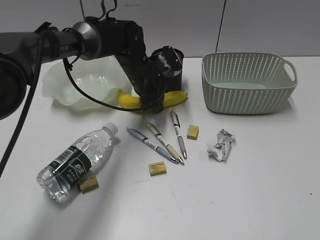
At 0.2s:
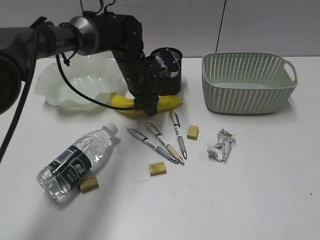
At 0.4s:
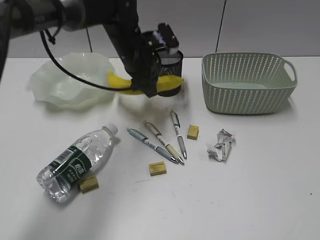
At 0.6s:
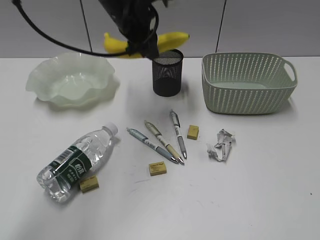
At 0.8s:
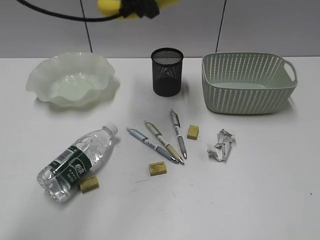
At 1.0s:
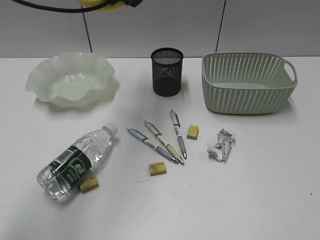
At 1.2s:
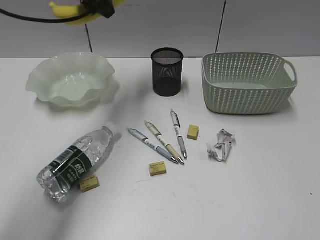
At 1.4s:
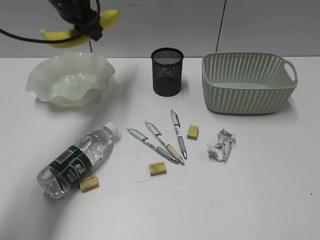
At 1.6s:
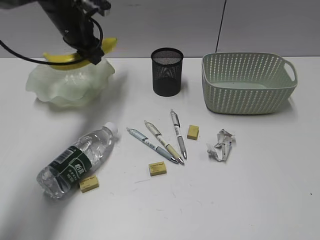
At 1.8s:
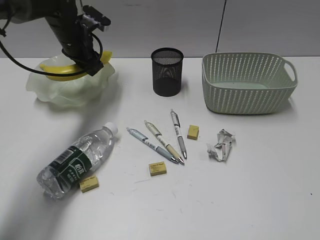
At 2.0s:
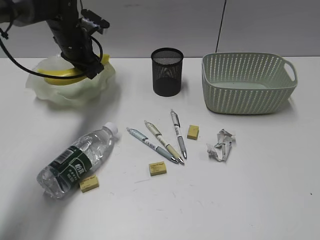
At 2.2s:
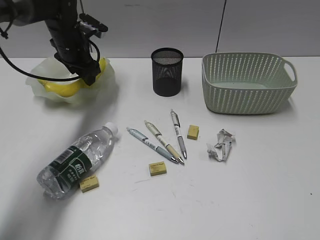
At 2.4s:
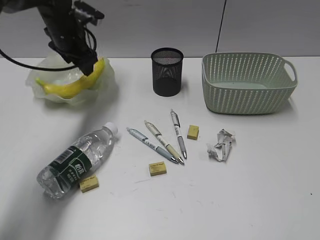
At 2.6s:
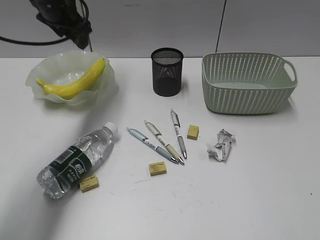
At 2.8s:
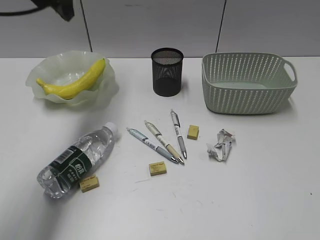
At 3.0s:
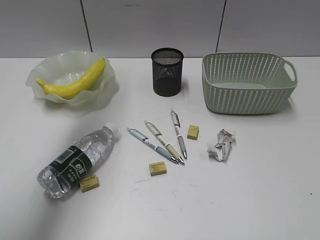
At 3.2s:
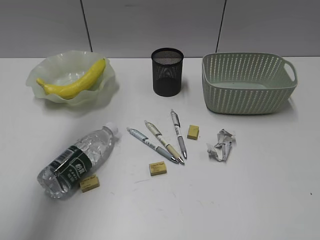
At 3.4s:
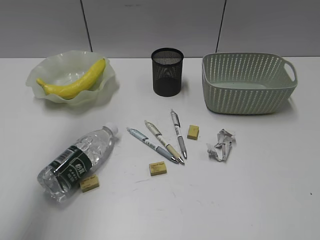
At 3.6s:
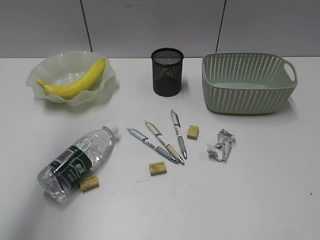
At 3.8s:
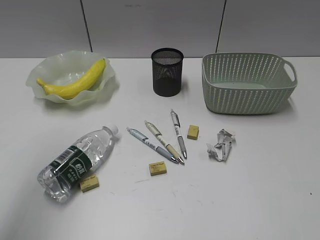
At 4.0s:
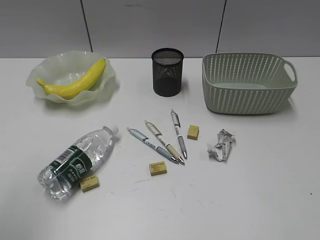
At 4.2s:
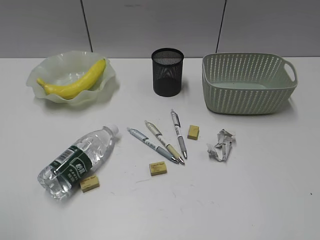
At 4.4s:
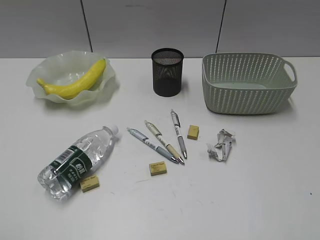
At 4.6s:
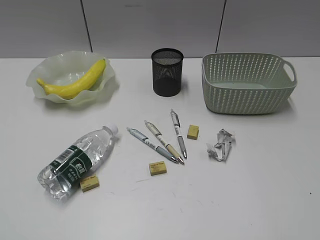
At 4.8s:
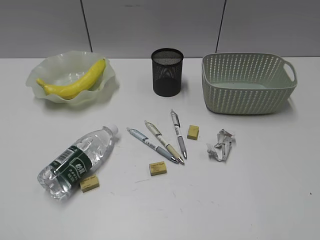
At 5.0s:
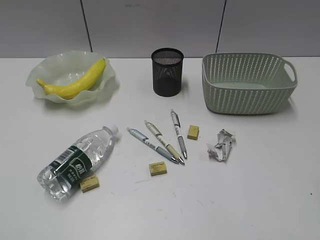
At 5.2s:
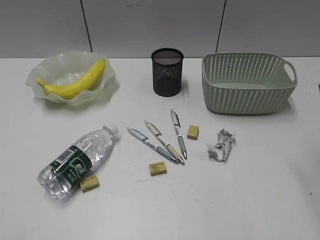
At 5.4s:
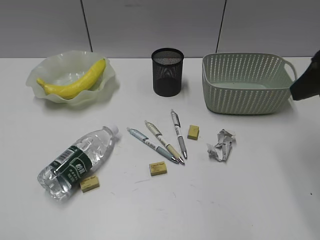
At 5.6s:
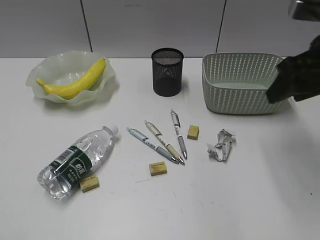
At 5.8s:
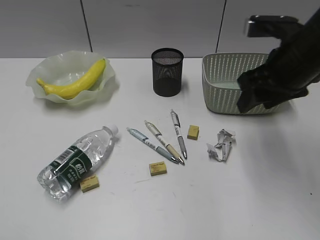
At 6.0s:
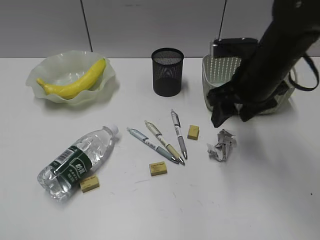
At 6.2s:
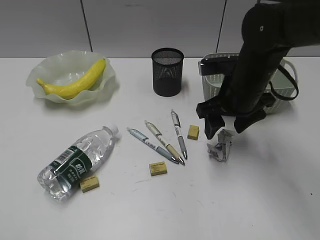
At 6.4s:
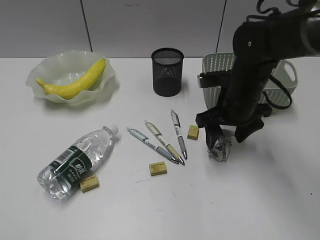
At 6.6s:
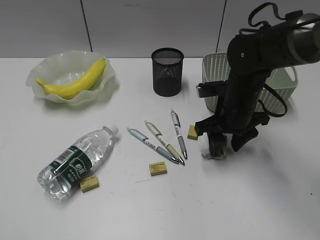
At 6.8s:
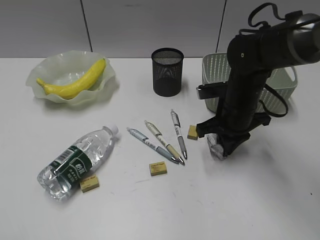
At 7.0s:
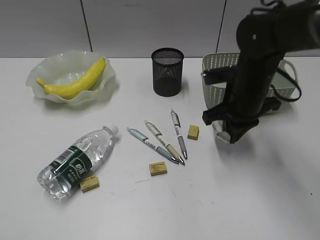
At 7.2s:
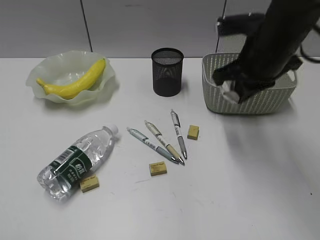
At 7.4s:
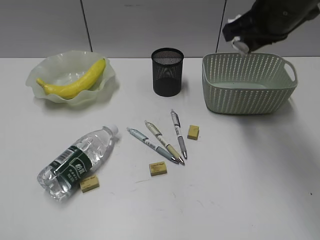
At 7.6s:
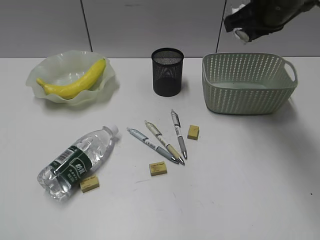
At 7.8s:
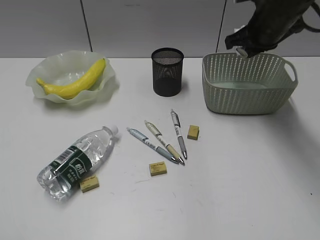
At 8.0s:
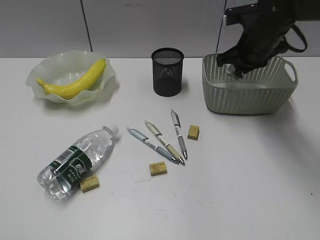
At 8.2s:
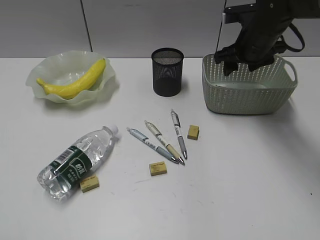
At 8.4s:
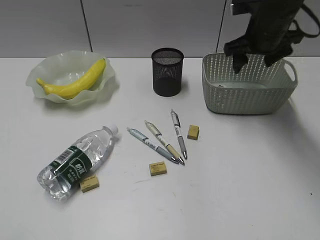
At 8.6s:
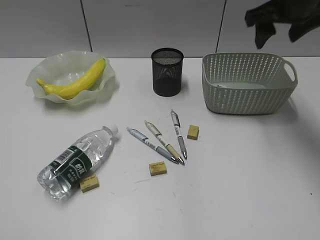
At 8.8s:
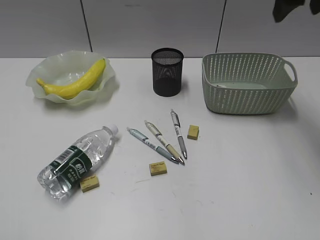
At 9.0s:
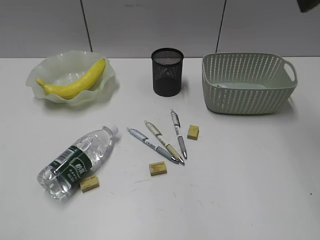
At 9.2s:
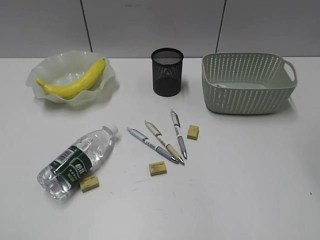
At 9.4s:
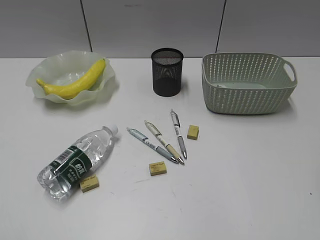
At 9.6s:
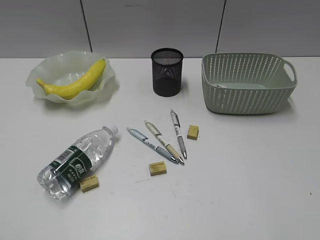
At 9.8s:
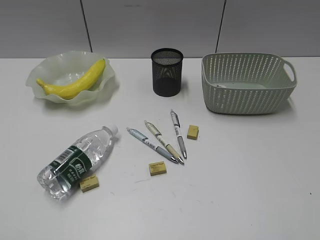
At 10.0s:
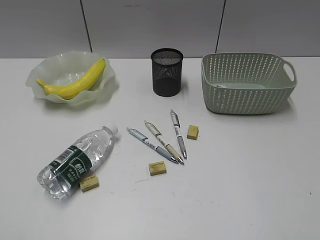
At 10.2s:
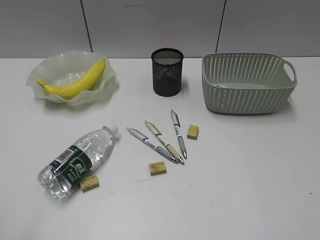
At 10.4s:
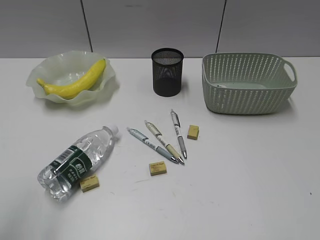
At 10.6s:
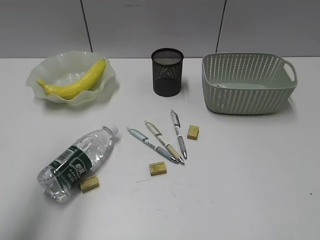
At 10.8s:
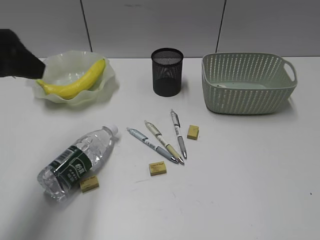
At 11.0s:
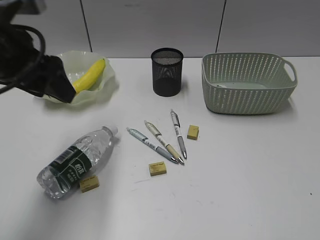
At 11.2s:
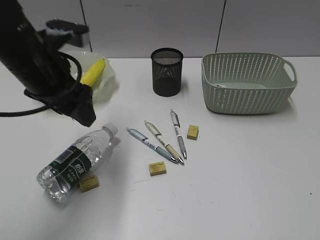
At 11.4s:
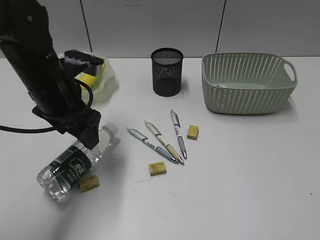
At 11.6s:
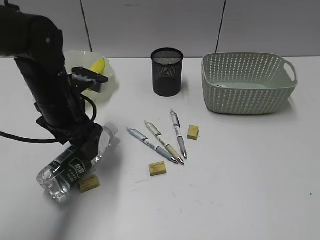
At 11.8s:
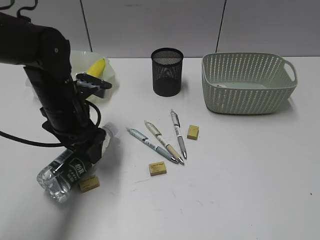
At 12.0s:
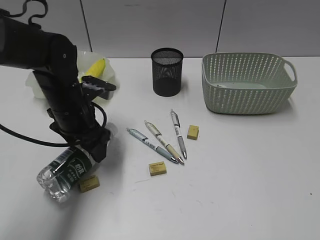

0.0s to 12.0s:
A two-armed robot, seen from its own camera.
Step, 0.2s to 2.4s: Place the banana in the plate with left gripper.
Step, 2.6s to 6.8s: Grasp the waste paper with right gripper.
Step, 7.0s to 8.2s: Place the waste paper in the basket with right gripper.
0.0s to 1.6s: The left gripper goes approximately 15 cm to the left and upward.
1.6s to 3.0s: The left gripper moves upward and backward, some 20 cm, and opens up.
3.0s to 4.4s: The left gripper shifts approximately 40 cm backward.
4.4s to 6.0s: The right gripper travels forward and to the left by approximately 35 cm.
6.0s to 7.6s: The right gripper travels upward and forward by some 10 cm, and closes.
7.6s to 9.0s: The right gripper heads upward and backward, covering about 15 cm, and opens its fingers.
10.4s to 12.0s: The left gripper goes approximately 35 cm forward, downward and to the right.

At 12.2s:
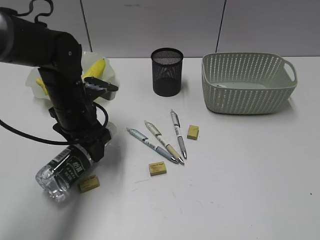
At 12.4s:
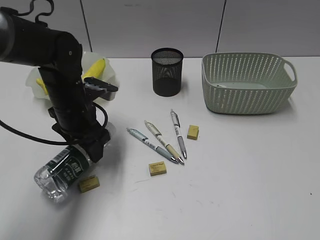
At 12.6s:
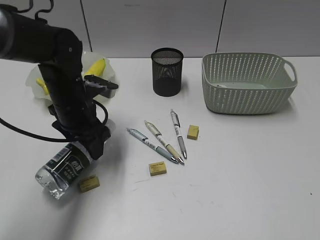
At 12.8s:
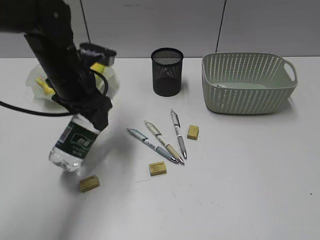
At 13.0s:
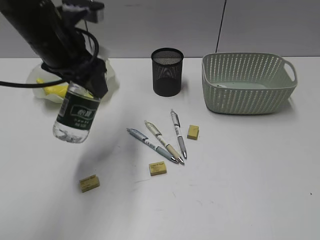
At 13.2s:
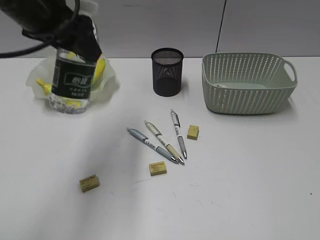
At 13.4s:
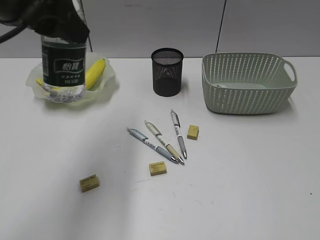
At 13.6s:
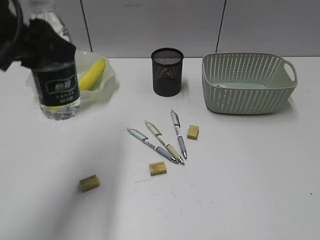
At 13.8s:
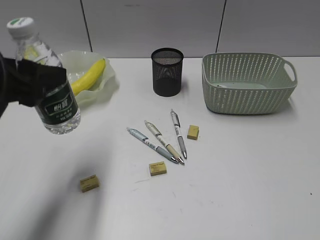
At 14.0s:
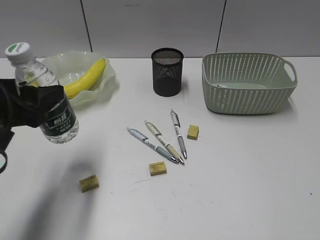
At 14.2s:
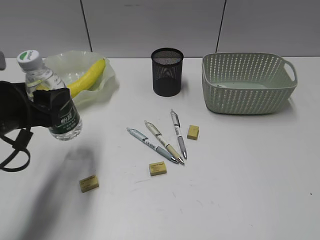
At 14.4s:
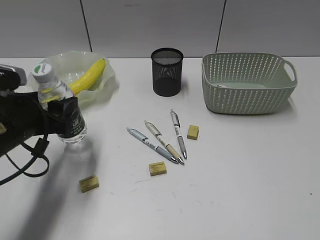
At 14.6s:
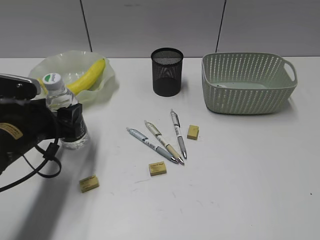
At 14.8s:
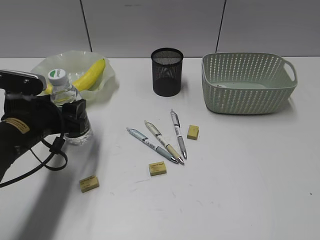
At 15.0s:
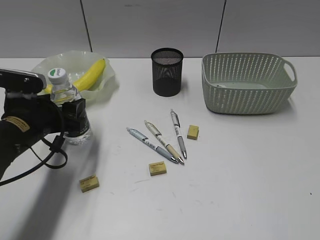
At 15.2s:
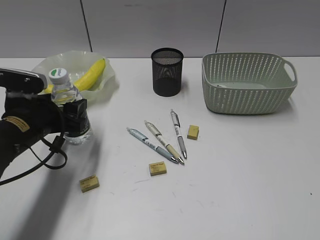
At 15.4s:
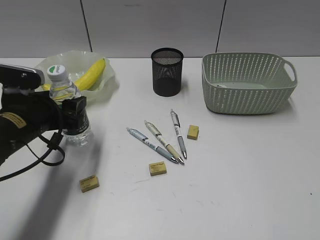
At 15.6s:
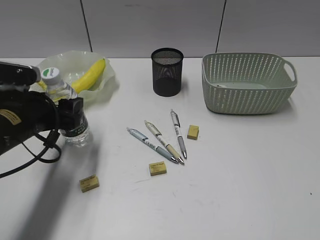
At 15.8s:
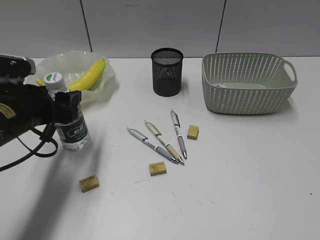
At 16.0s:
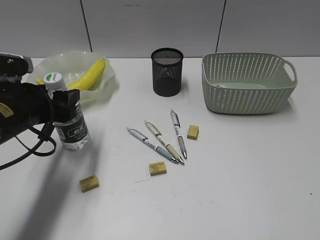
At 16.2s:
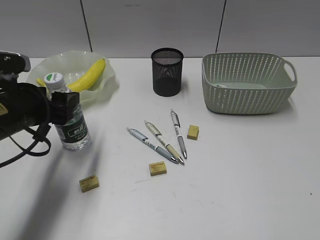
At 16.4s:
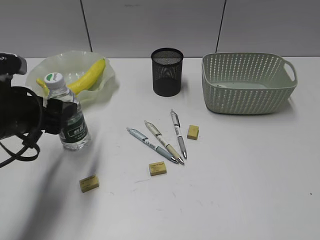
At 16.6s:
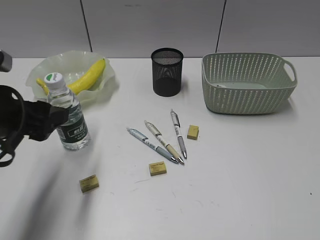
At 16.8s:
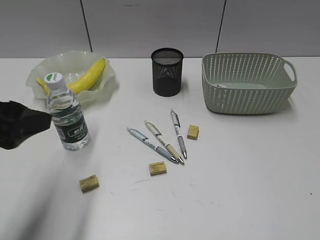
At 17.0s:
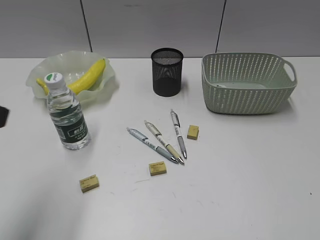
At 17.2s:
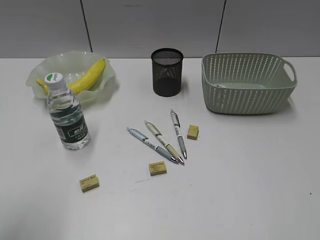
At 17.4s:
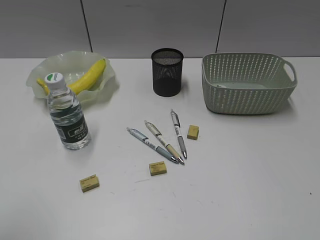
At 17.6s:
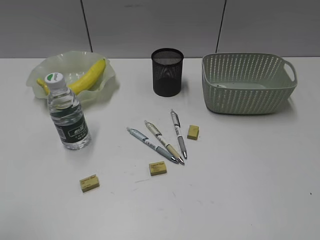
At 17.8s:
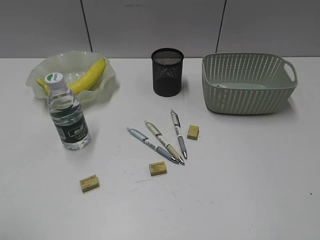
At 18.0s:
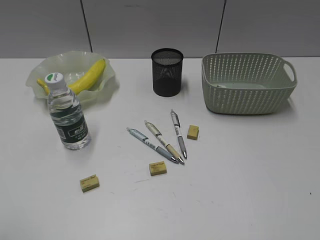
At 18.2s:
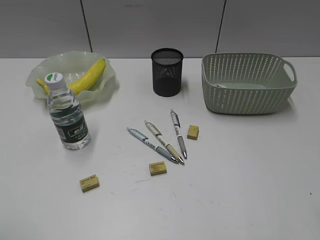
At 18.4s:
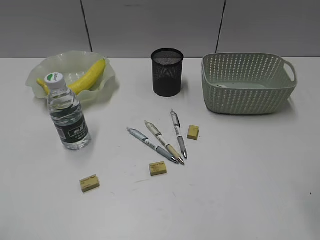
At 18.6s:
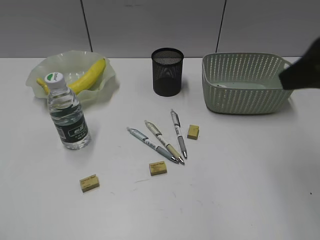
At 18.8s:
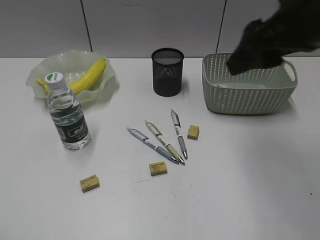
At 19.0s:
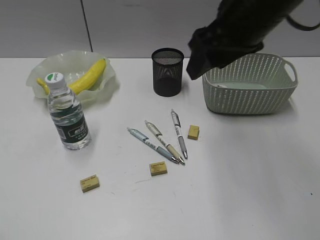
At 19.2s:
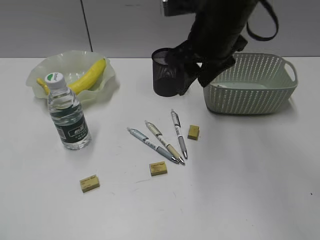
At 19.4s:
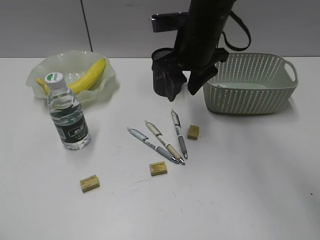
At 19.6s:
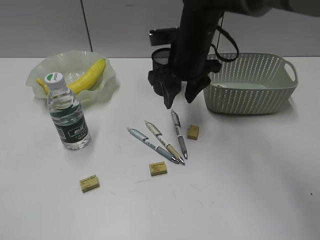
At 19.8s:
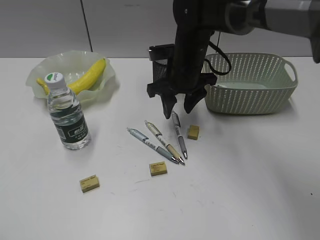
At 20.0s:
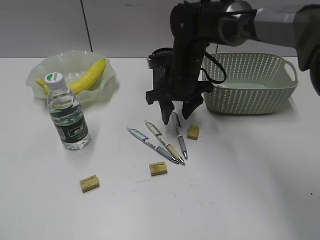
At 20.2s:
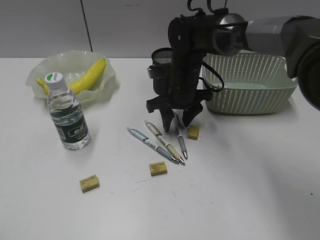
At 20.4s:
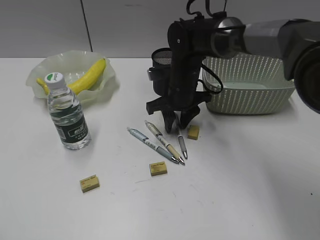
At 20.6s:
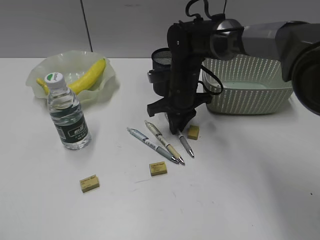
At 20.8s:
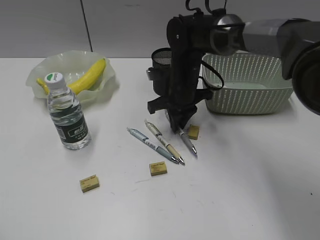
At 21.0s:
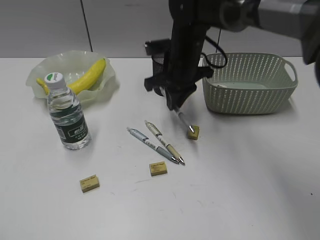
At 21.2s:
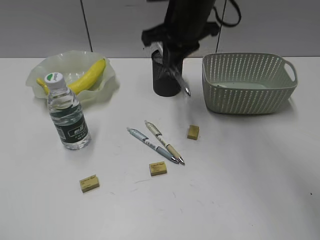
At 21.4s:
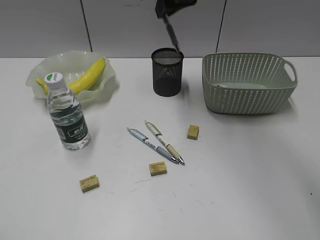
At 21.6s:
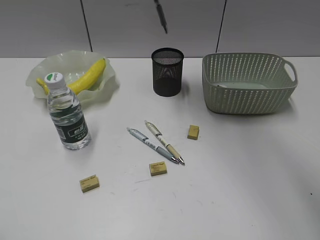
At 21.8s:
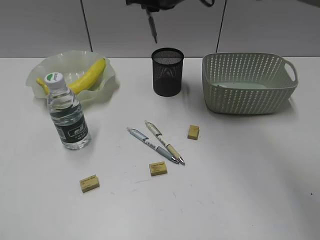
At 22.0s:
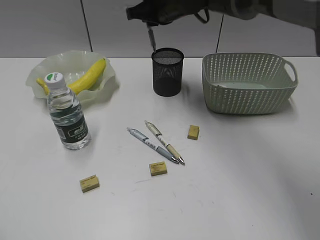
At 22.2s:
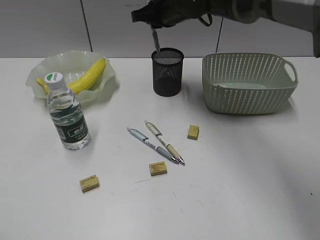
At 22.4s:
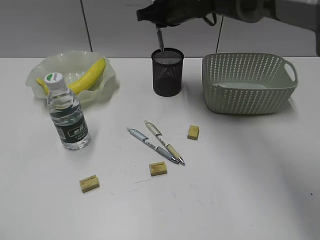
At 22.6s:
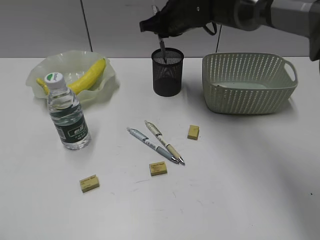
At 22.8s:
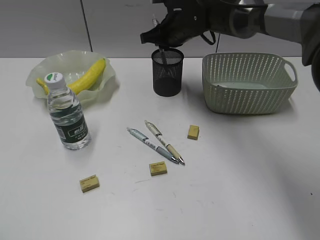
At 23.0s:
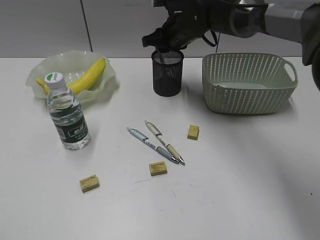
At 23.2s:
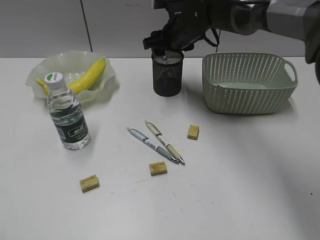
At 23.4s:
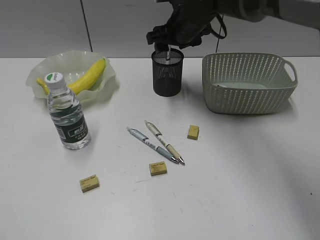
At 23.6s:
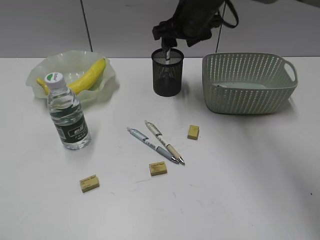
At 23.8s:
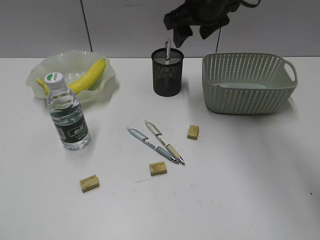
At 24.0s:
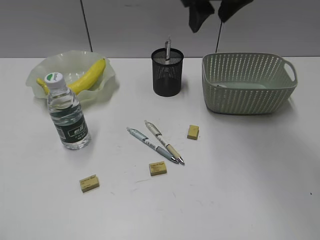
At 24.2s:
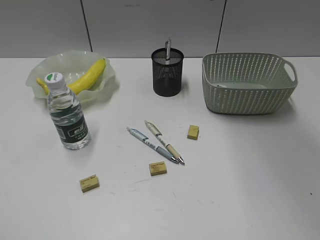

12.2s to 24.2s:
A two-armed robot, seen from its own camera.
Step, 12.6s to 16.6s: Stand the bottle with left gripper.
Step, 16.8s to 20.6s: Grasp the gray pen with right gripper.
Step, 20.8s to 23.2s: Place the gray pen in pen holder with right gripper.
12.2s to 13.8s: The left gripper moves upward, backward and to the left, roughly 20 cm.
13.8s to 15.2s: The left gripper moves downward and forward, about 15 cm.
15.2s to 16.6s: The left gripper is displaced upward and backward by about 10 cm.
16.6s to 18.2s: The left gripper goes roughly 25 cm backward, upward and to the left.
18.2s to 19.8s: The right gripper heads forward, to the left and downward, covering about 40 cm.
19.8s to 21.2s: The right gripper goes approximately 10 cm upward, and closes.
21.2s to 22.6s: The right gripper goes approximately 10 cm forward and downward.
22.6s to 24.2s: The right gripper moves upward, backward and to the right, approximately 25 cm, and opens up.
